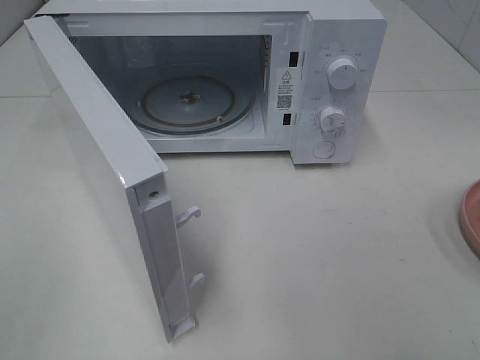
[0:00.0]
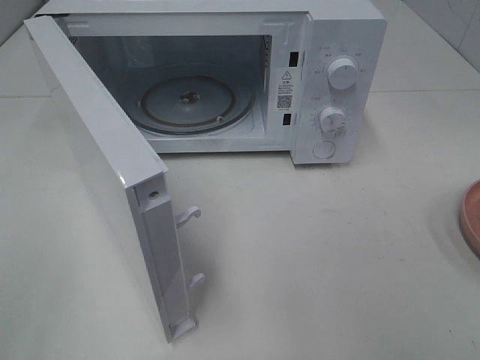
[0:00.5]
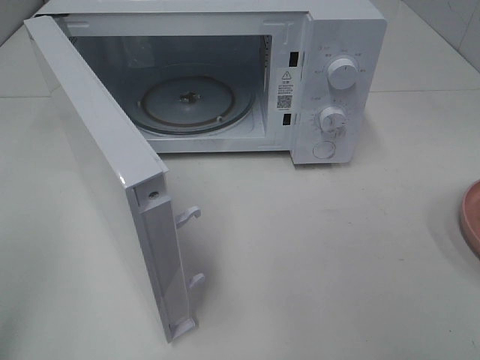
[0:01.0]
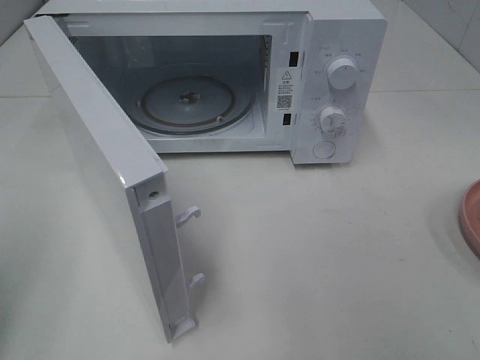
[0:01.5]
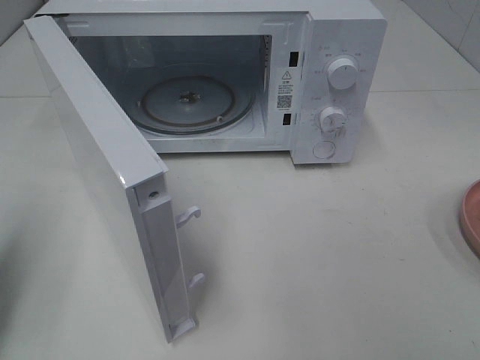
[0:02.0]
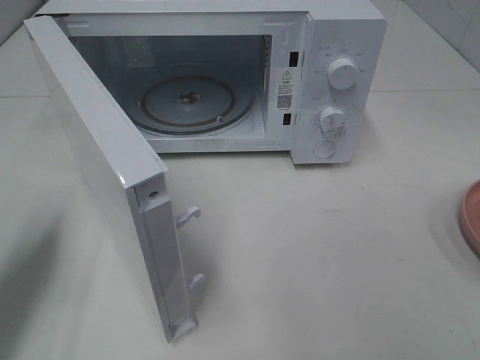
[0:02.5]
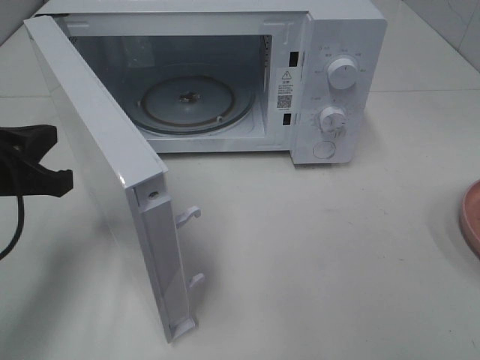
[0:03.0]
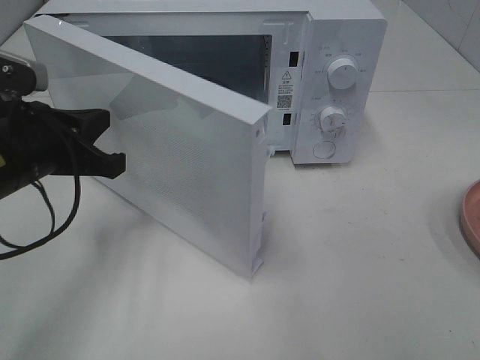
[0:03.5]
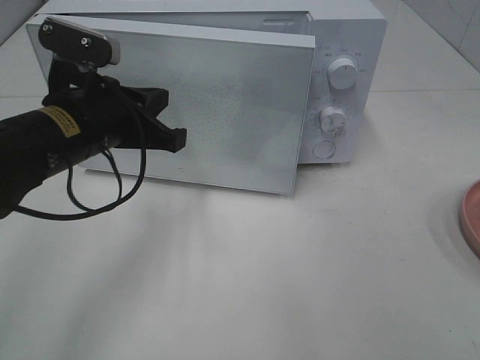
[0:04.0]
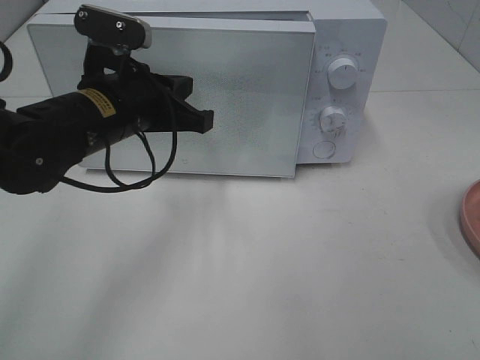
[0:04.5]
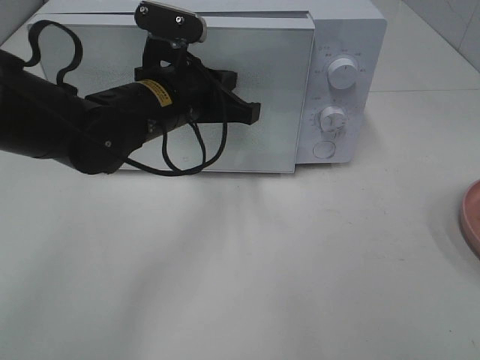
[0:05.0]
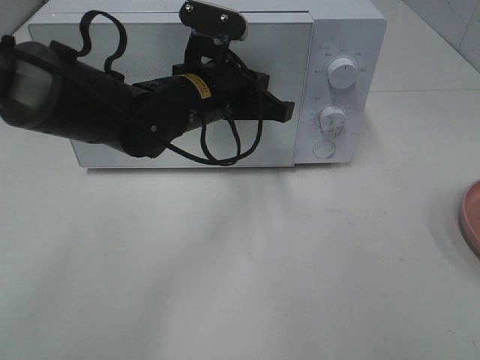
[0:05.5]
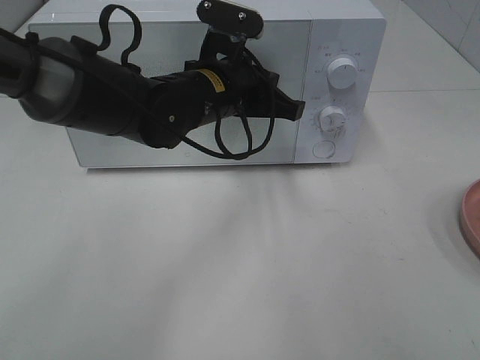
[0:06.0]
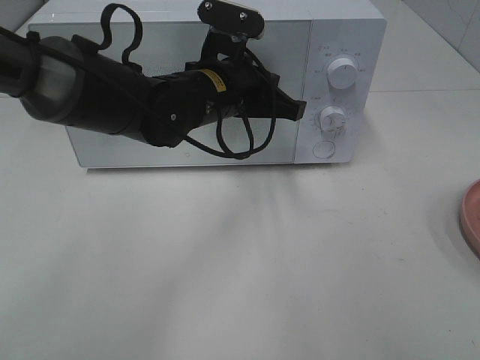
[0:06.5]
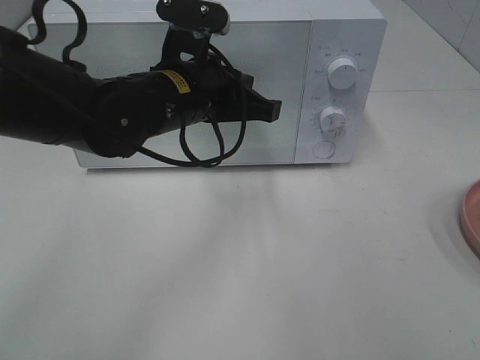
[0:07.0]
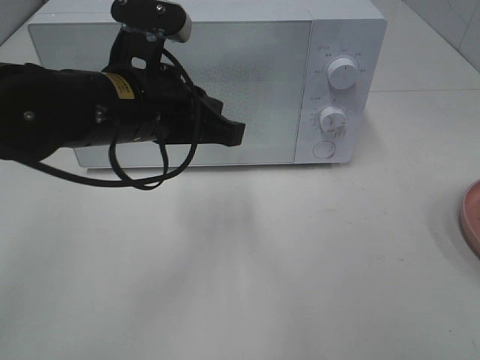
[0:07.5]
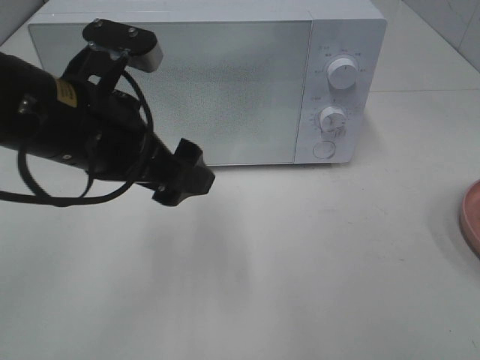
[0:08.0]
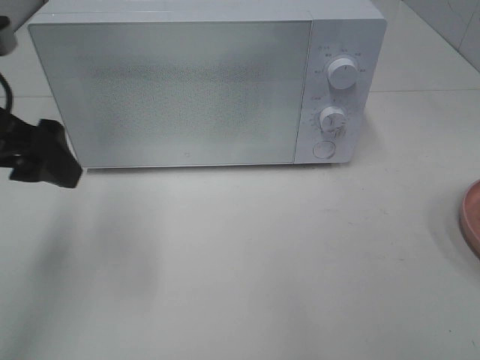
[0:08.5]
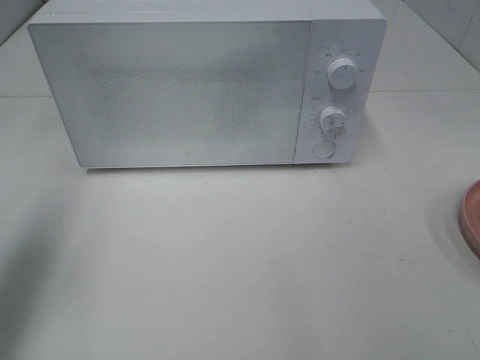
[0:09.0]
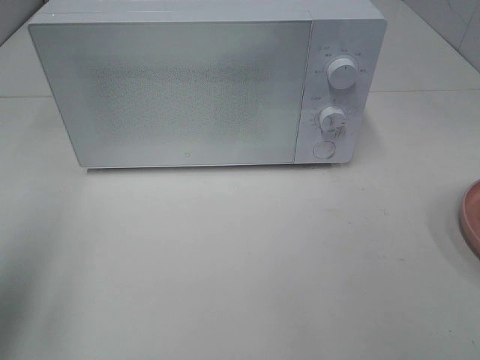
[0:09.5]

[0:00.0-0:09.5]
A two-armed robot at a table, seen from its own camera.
Task of the whole recording: Heat Sandwich.
Step, 0:00.0 to 0:07.0: Left hand: close the microwave door.
0:00.0 to 0:02.0: The left gripper is displaced forward by roughly 15 cm, and closes.
0:02.0 to 0:04.0: The left gripper travels to the right and forward by about 20 cm.
0:04.0 to 0:05.5: The left gripper shifts about 15 cm to the right and forward.
0:05.5 to 0:07.5: The left gripper heads backward and to the left, covering about 10 cm.
0:07.5 to 0:09.5: The left gripper is displaced to the left and backward by roughly 25 cm, and opens its fingers.

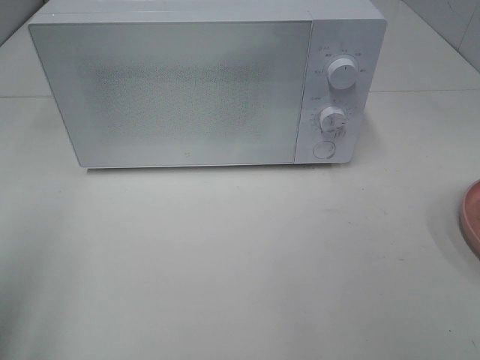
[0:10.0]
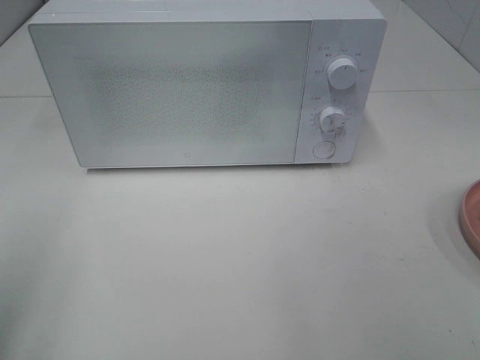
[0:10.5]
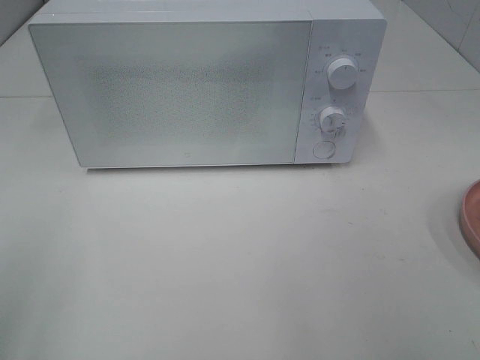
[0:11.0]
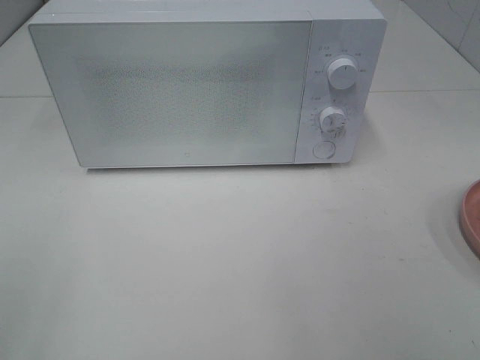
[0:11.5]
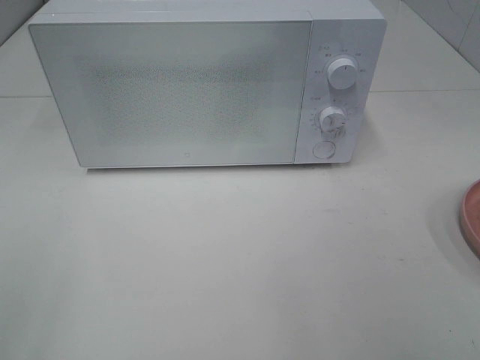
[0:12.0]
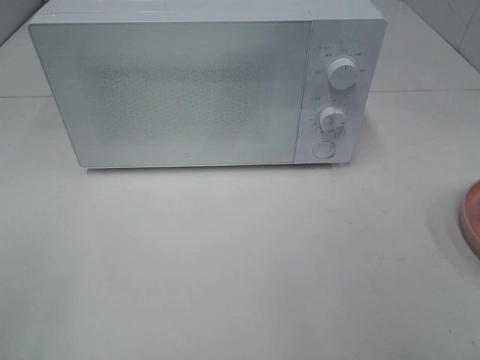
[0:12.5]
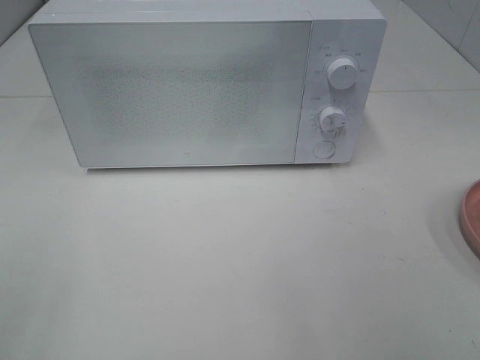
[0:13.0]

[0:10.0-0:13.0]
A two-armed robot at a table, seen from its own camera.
Task of the whole recording: Heat Sandwich.
0:11.5 to 0:13.0: Neither gripper changes place.
